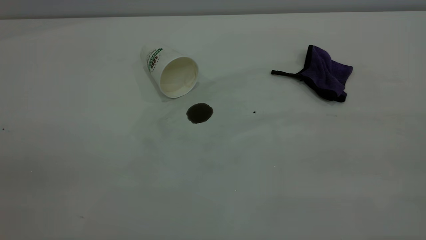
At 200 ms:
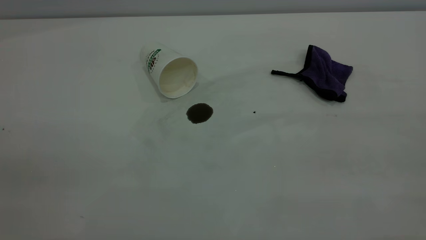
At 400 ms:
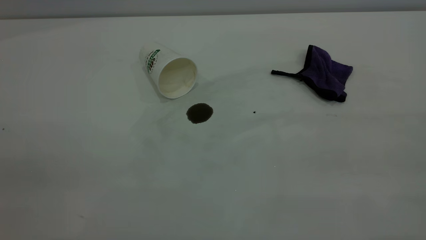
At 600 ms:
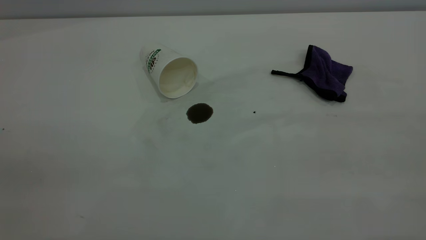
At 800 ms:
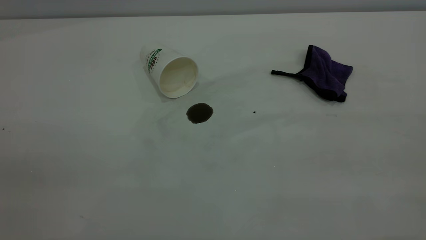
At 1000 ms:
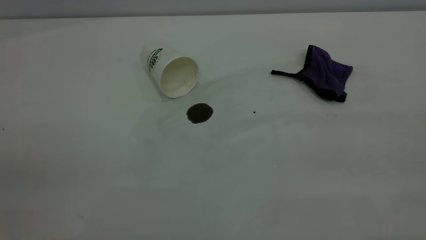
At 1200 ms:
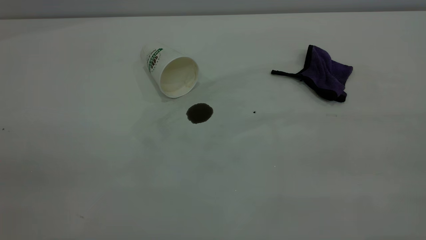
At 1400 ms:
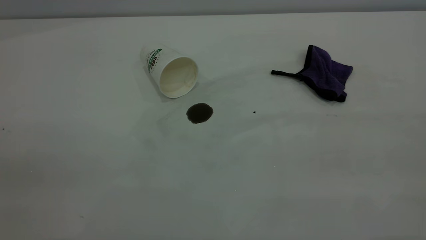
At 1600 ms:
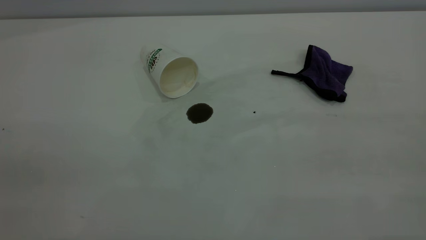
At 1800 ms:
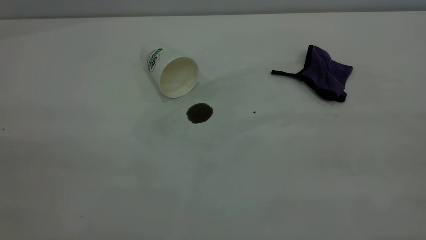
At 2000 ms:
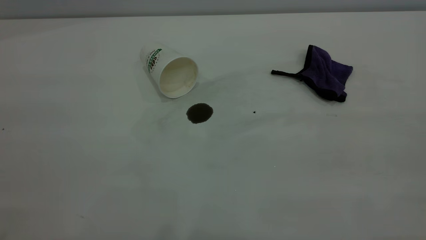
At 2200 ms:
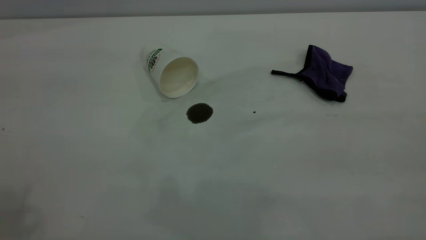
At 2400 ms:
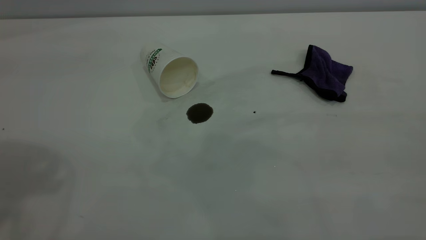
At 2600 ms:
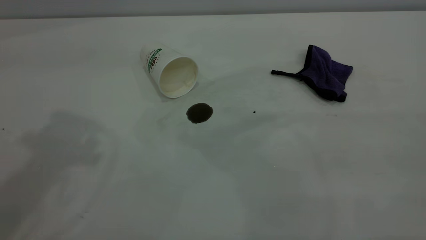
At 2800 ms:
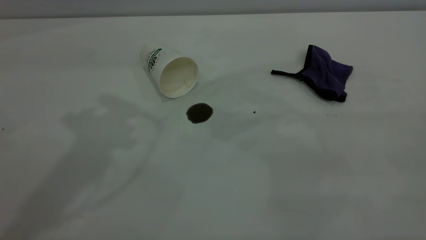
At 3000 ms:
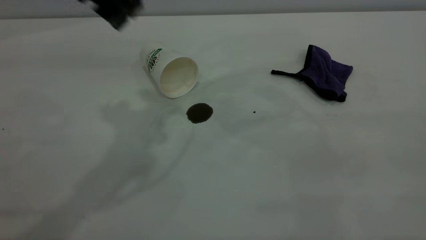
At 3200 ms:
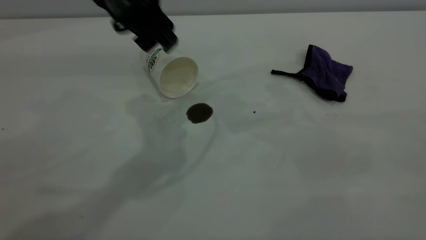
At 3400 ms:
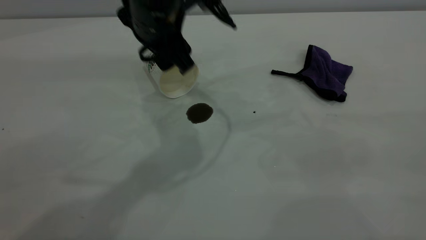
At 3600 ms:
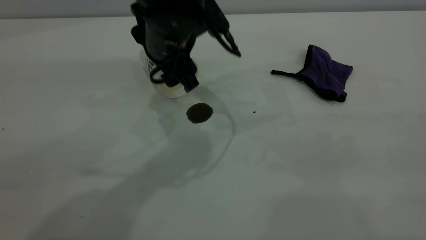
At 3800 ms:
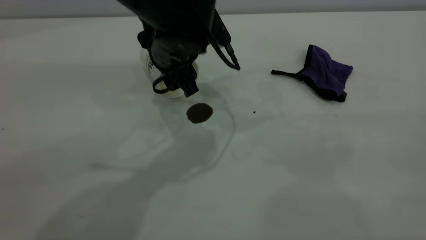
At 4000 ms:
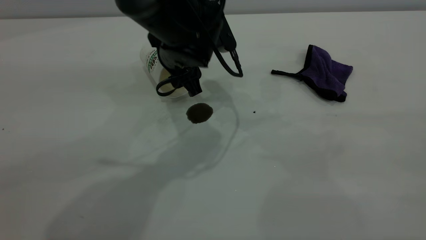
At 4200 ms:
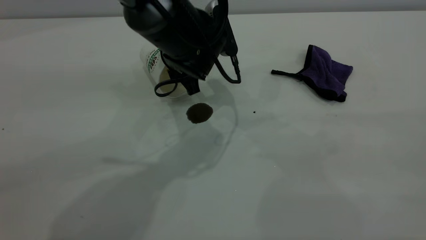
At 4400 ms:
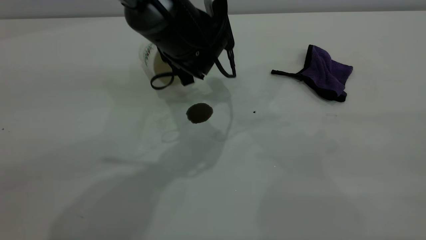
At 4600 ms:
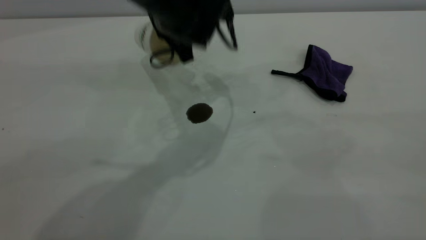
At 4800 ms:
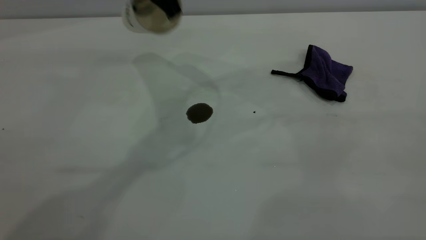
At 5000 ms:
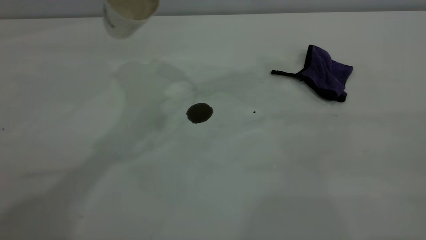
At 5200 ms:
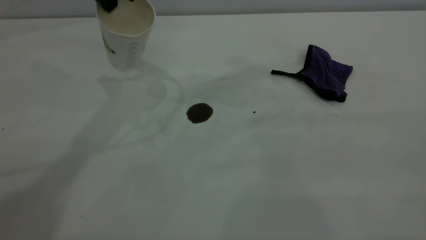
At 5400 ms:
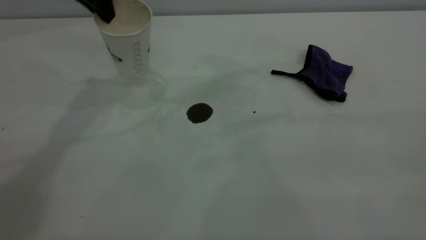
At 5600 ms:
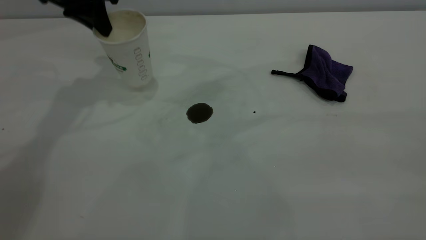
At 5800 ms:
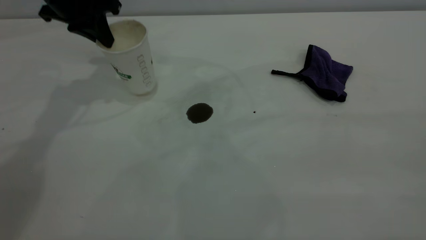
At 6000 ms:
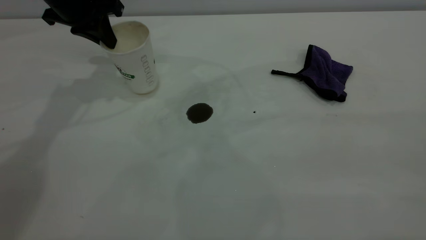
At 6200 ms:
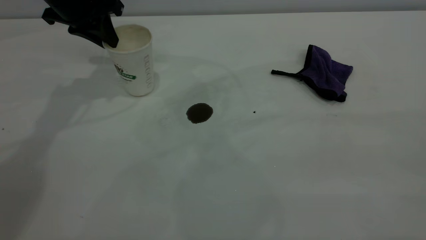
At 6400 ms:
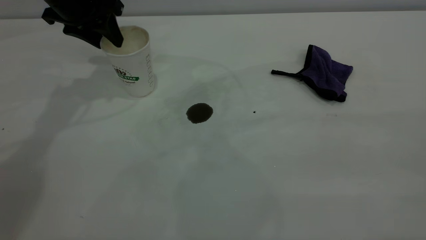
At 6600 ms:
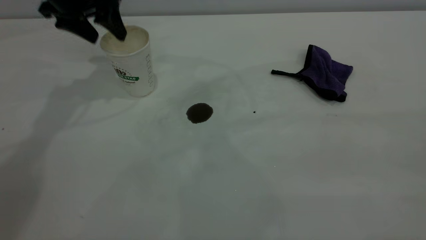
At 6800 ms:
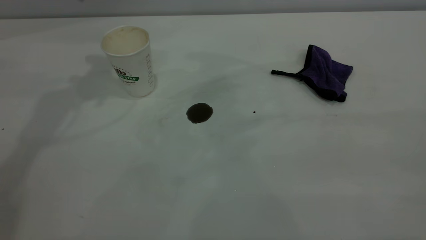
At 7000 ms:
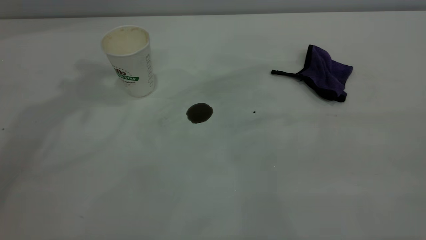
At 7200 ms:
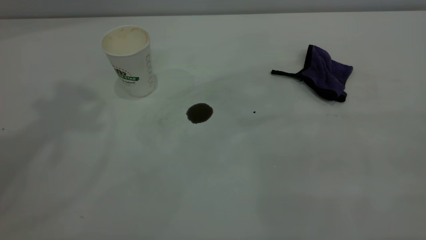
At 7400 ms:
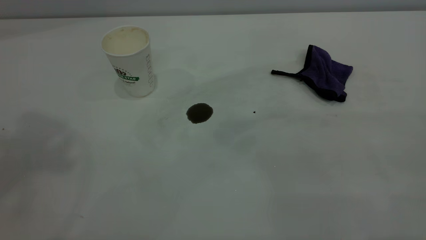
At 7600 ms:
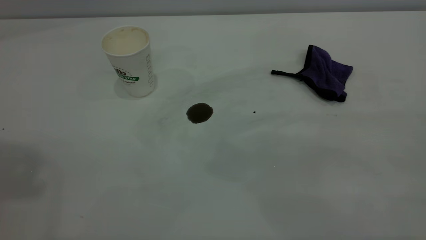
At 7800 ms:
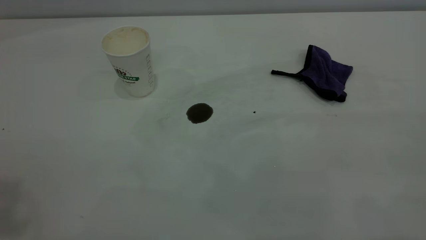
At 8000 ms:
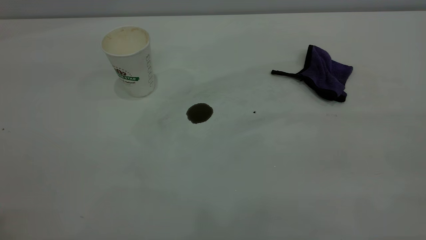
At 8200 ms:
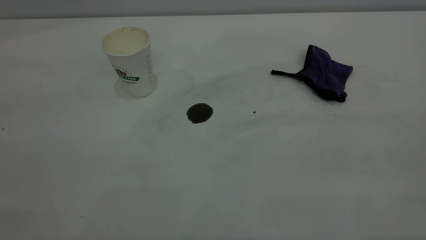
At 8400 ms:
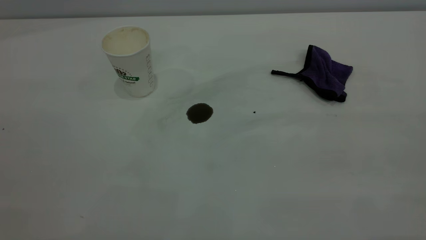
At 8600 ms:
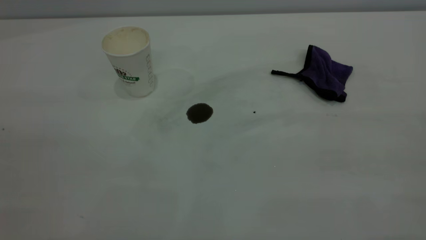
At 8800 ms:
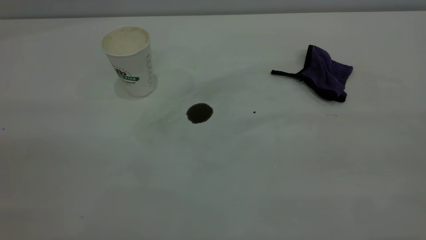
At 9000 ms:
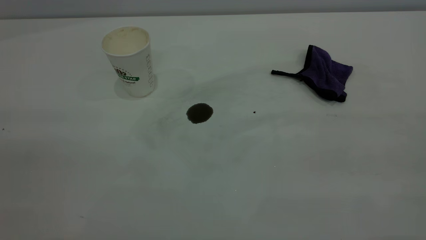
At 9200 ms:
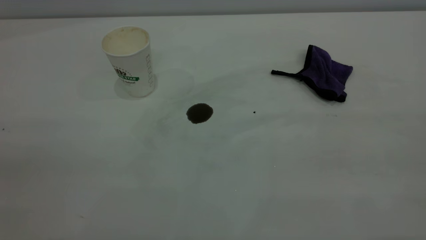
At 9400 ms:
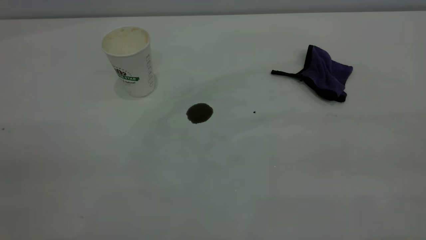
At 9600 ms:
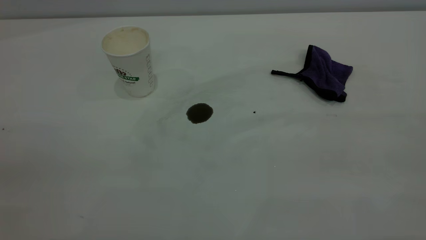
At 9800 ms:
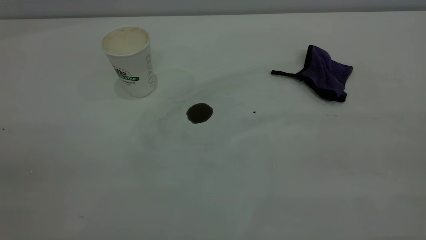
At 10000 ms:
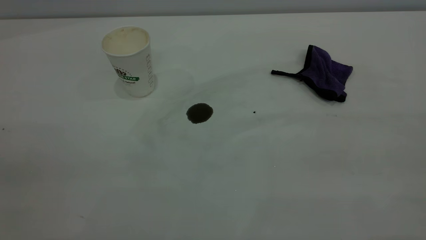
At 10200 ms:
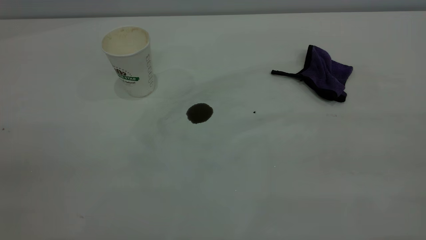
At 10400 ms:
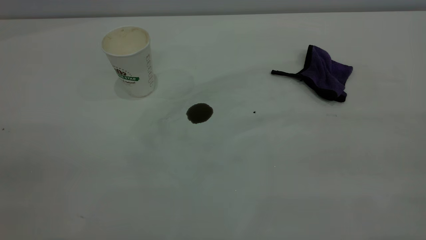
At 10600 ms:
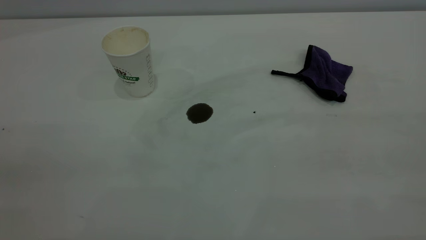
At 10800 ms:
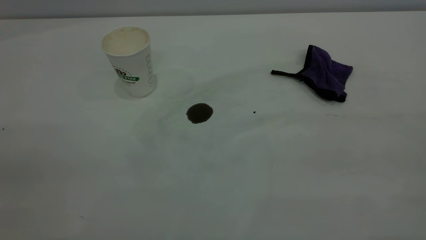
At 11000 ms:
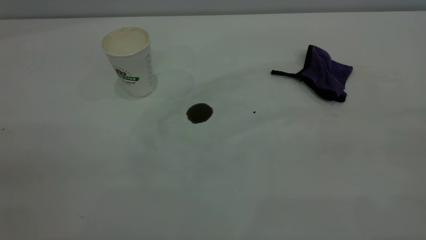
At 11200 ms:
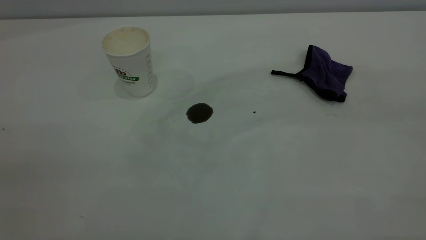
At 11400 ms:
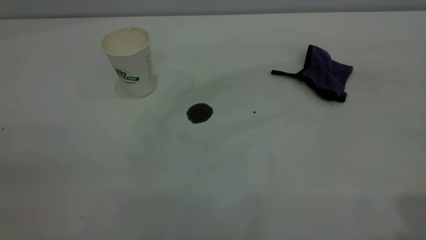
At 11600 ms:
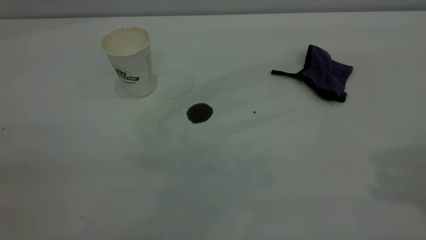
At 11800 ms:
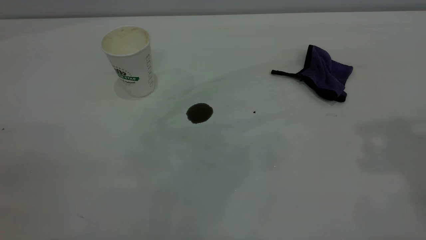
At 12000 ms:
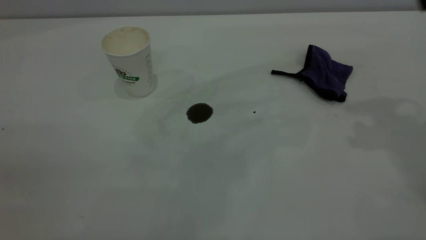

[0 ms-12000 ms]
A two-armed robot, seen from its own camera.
Task of the whole recording: the left gripper pick up the fallen cup and place it upright, the right gripper grasp the purple rag and wipe the coffee stain on the table, the right gripper put the purple rag back in its original position.
Step, 0 ms to 6600 ms: Stand the paper cup upright.
0 ms to 1600 ms: The two grippers keep their place.
1600 ms to 3000 ms: The left gripper heads forward and to the right, covering some 40 cm, and opens.
3000 ms to 4400 ms: The left gripper moves downward and to the right, roughly 15 cm, and closes its fingers.
4400 ms to 6000 ms: The left gripper moves to the left and upward, some 20 cm.
6000 ms to 7600 ms: The left gripper is displaced upward and backward by roughly 40 cm, and opens its fingers.

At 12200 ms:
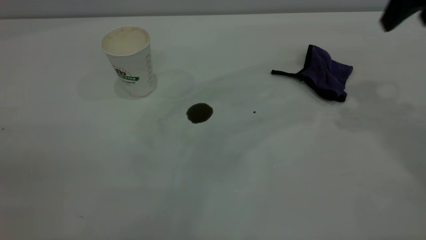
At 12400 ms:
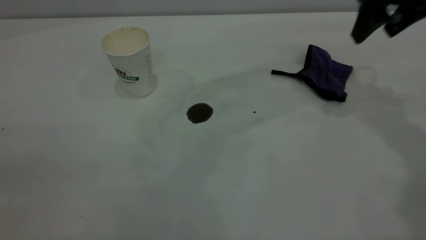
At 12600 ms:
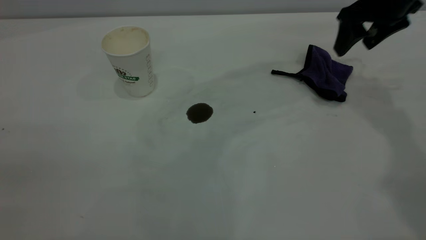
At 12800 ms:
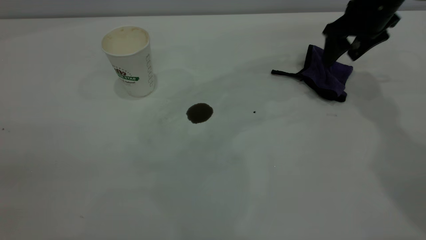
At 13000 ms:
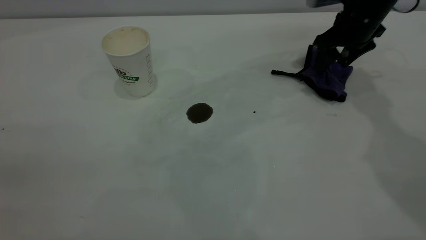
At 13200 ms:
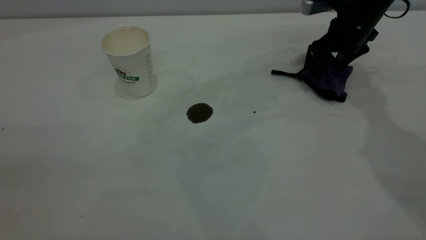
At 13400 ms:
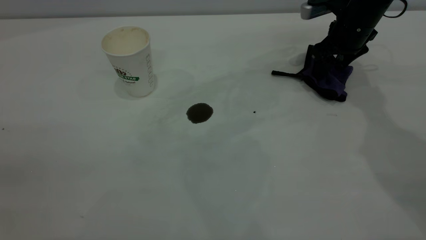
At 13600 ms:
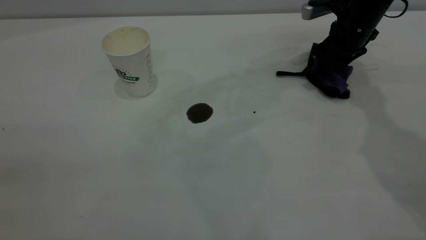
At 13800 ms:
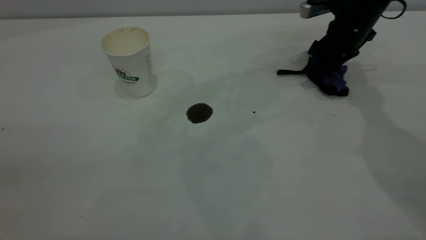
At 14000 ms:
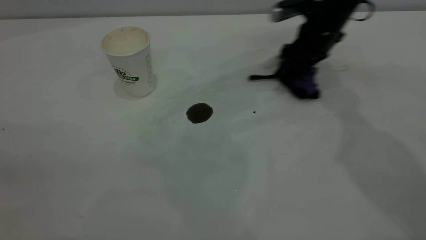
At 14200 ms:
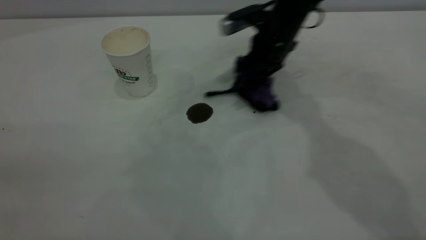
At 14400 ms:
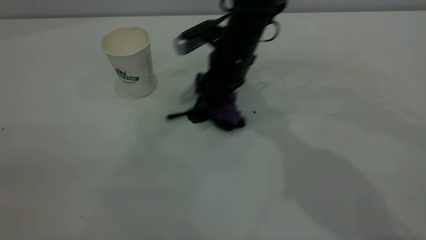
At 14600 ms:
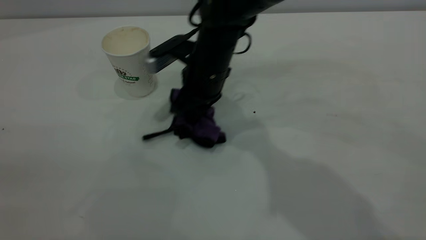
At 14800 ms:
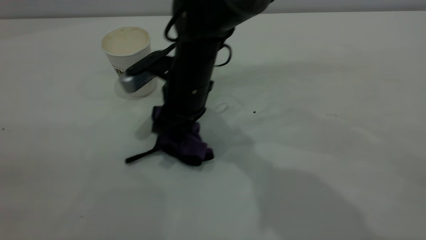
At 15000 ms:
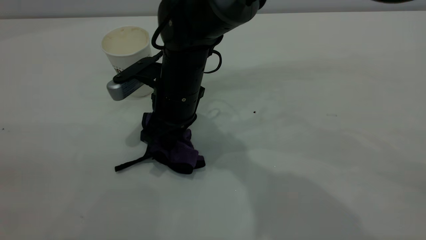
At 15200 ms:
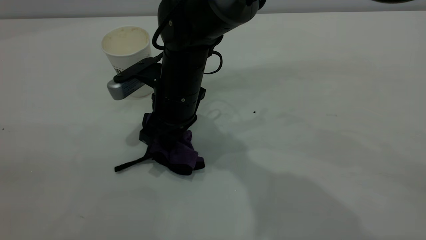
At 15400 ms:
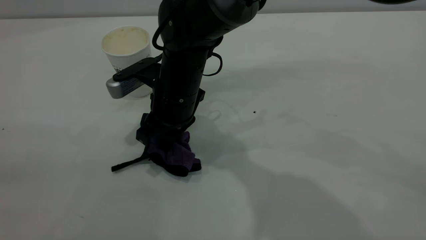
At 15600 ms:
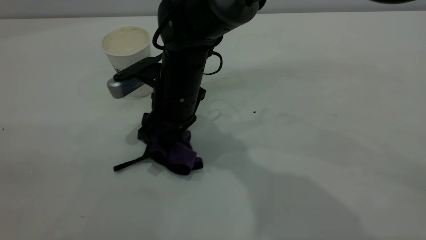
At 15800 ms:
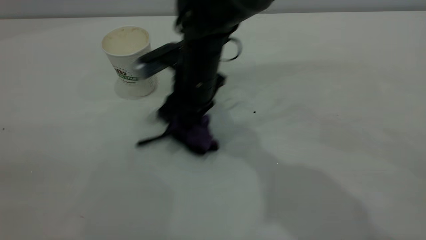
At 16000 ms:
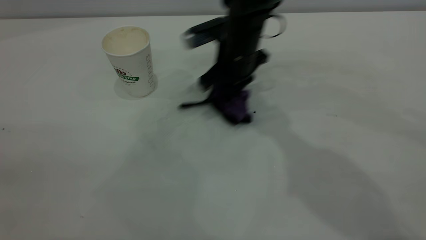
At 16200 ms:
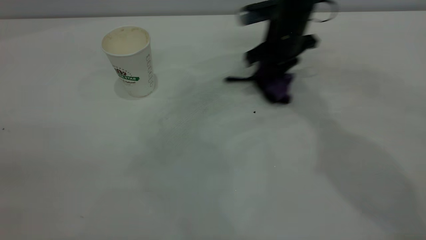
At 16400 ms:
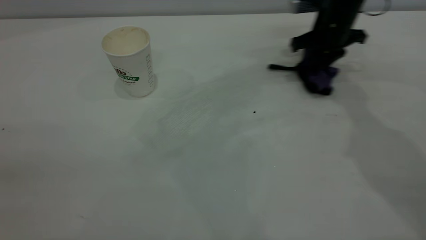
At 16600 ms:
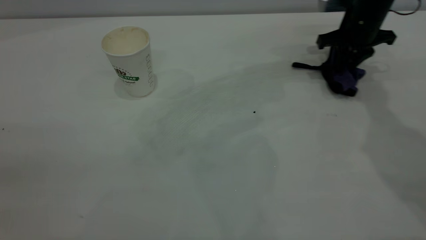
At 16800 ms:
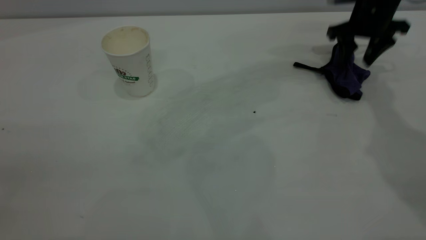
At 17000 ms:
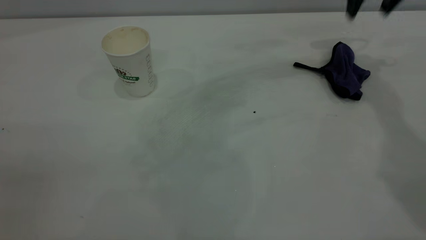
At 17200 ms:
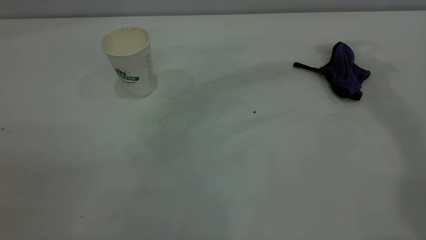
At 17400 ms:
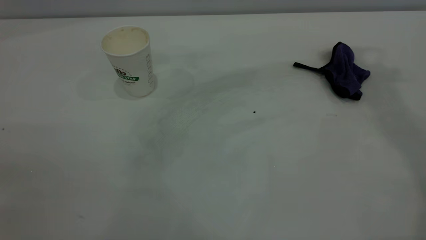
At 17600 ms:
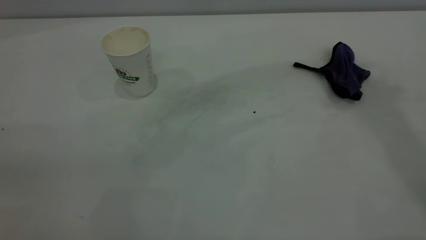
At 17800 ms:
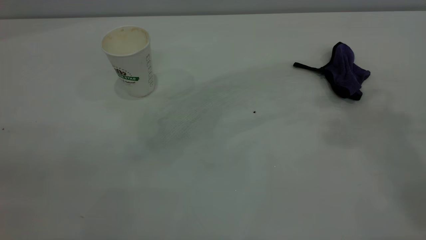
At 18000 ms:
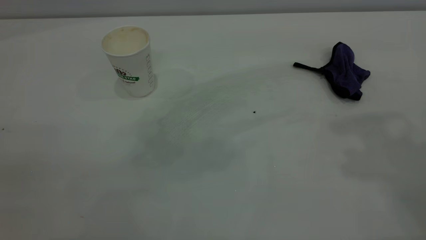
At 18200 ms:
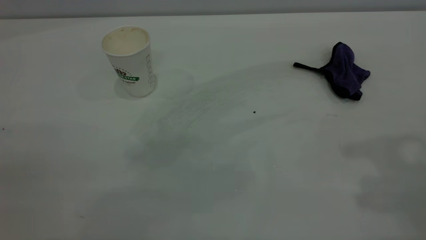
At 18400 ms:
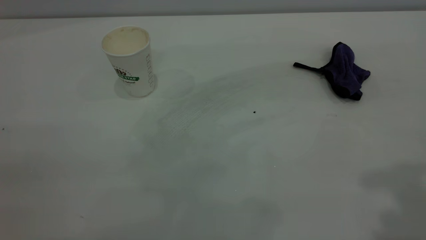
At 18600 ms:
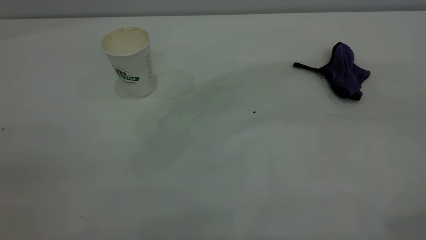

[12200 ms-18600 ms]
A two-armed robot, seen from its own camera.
Task of the whole recording: the left gripper pick up the fallen cup and place it upright, the right gripper grasp the purple rag and wipe the coffee stain on the table, the right gripper put the purple rag back in its original position.
Step, 12200 ms to 16800 ms: Wipe the stains off the table with a rag.
12200 ms to 13800 ms: The right gripper is displaced downward and forward by approximately 20 cm, and closes.
13800 ms to 15400 ms: The right gripper is displaced to the left and backward by about 30 cm.
15400 ms to 17000 ms: The right gripper travels to the right, upward and forward by roughly 40 cm, and opens.
